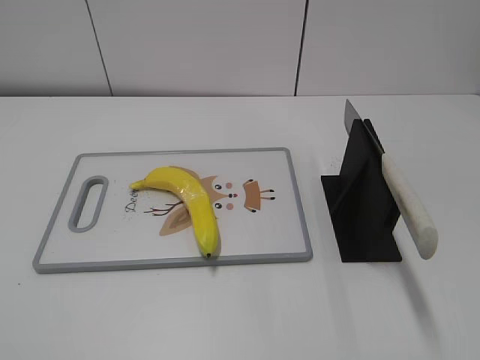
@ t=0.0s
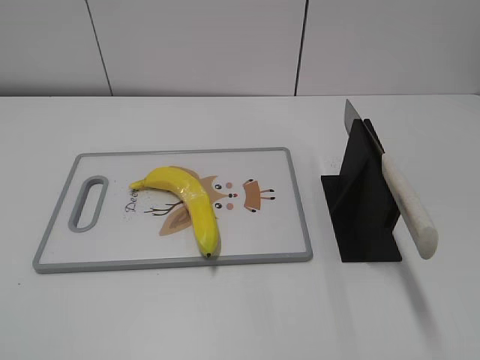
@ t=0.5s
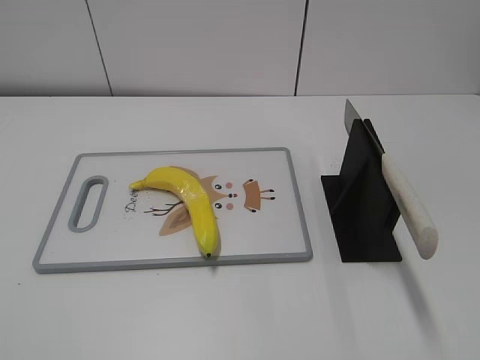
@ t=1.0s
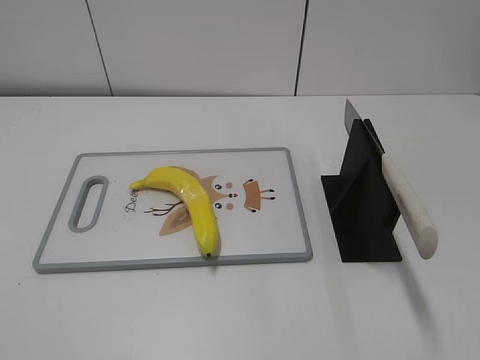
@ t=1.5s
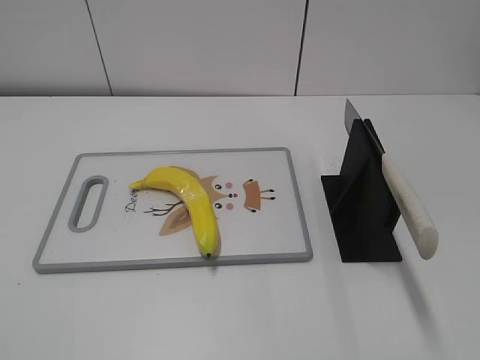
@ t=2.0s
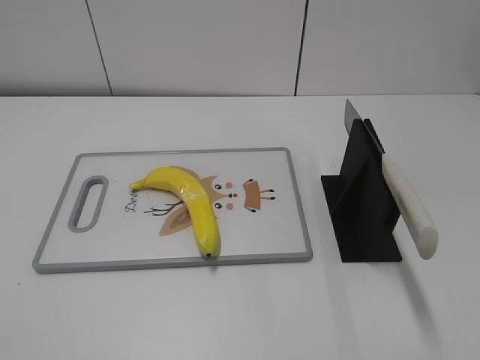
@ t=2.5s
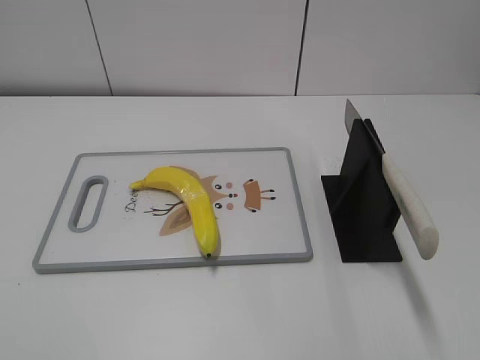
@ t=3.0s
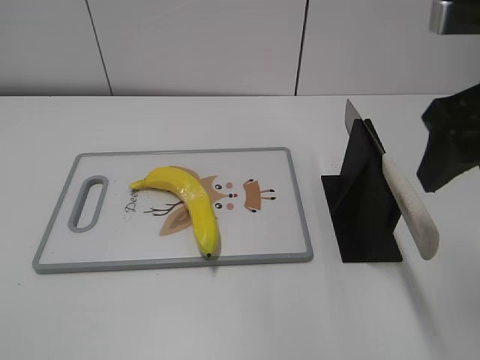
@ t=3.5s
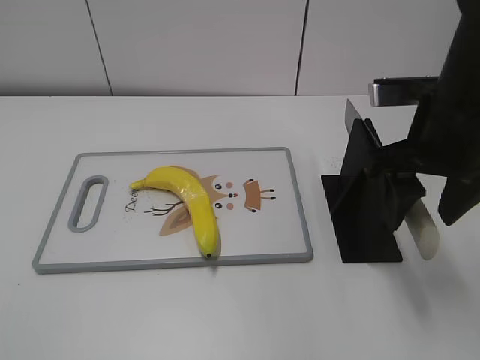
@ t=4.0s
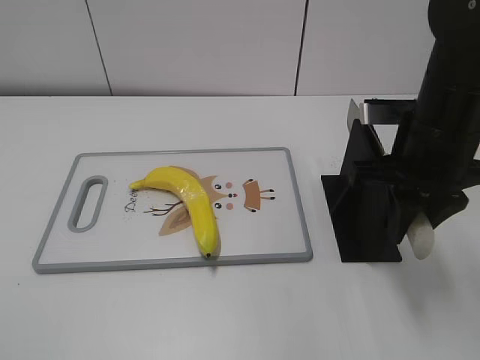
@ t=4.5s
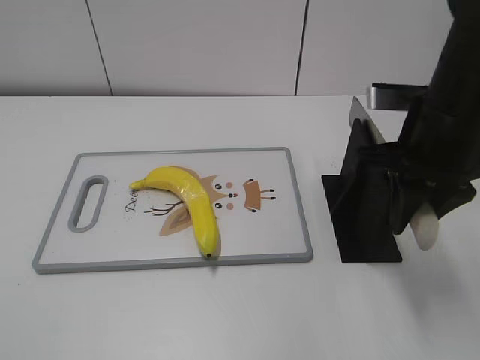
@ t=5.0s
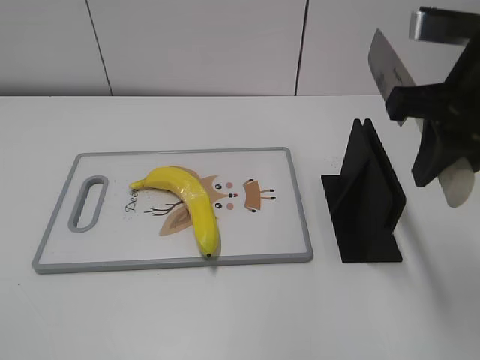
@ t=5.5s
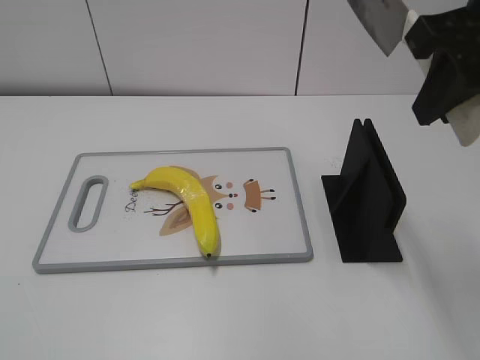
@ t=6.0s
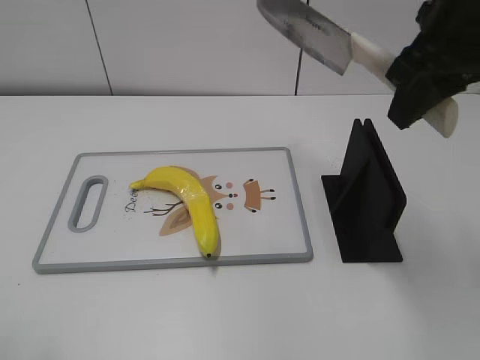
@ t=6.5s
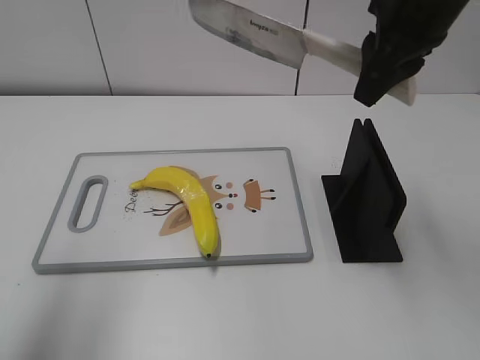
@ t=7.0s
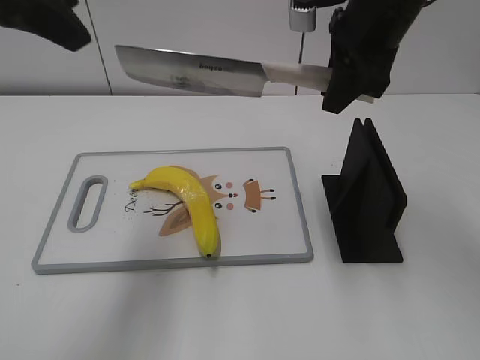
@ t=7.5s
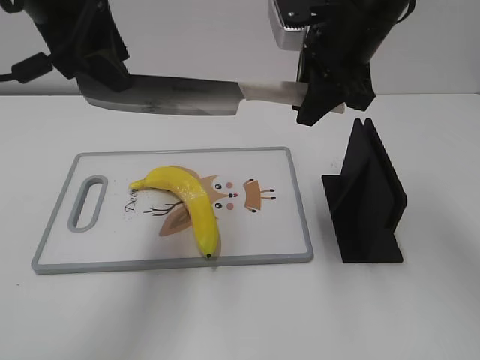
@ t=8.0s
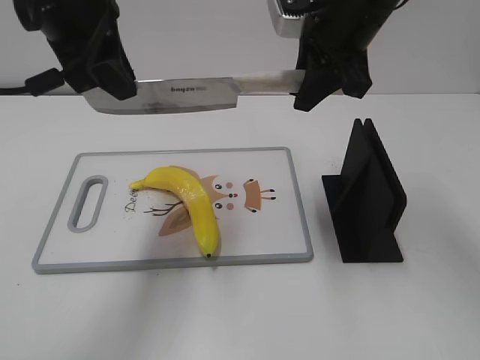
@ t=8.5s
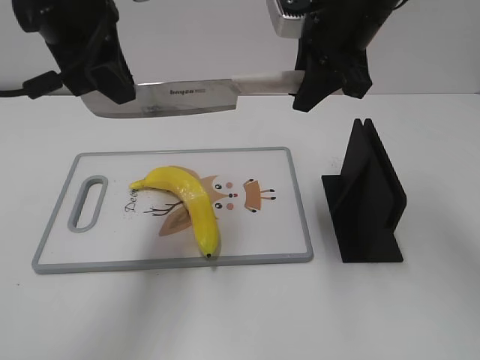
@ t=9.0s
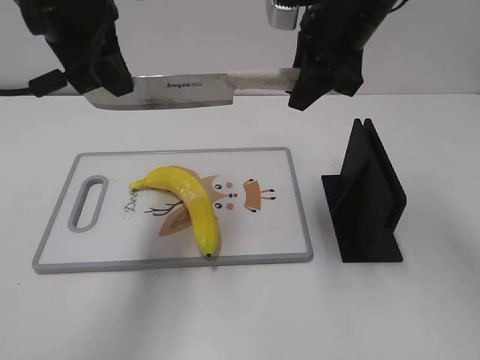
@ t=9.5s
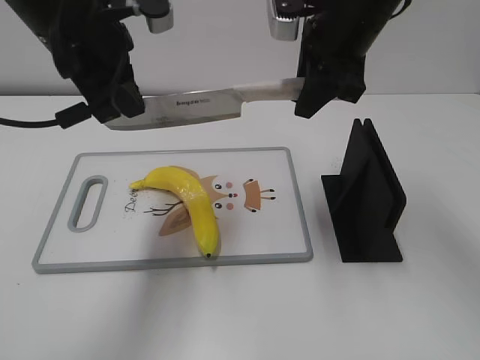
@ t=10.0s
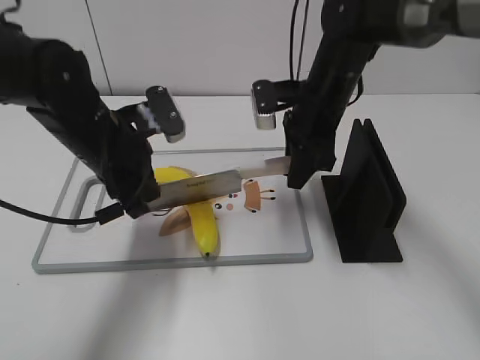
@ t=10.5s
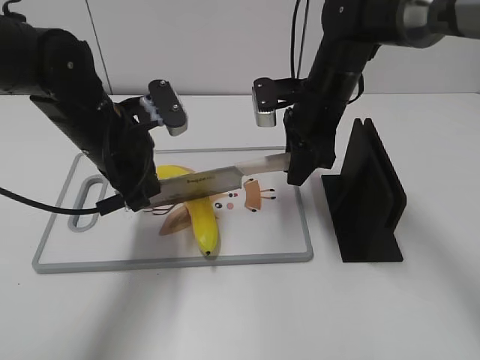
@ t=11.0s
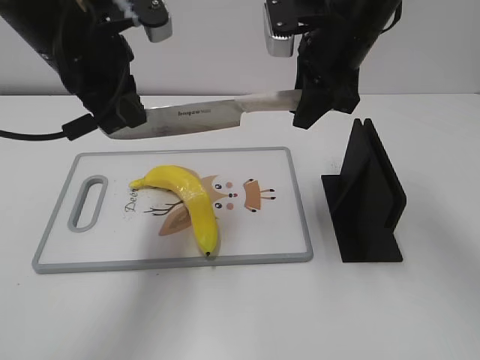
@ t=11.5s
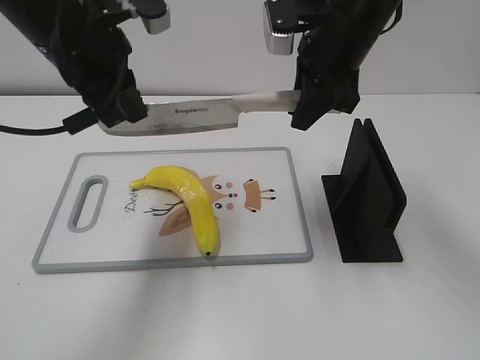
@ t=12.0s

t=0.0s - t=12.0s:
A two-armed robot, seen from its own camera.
Task of the whole recording: cut plastic banana.
Step, t=0.0s - t=5.5s: Grab the knife handle with your right hand.
Step, t=6.0s - t=11.0s: Lift the knife with your right hand.
t=2.0s - t=4.0s: The right gripper moves forward, roughly 30 cm.
t=4.0s - t=6.0s: The right gripper moves upward, roughly 10 cm, and closes up.
t=6.0s - t=8.0s: The right gripper shifts approximately 15 cm forward, downward and to the left. Meanwhile the left gripper heads forward and to the right, covering some 35 cm.
t=8.0s - t=10.0s: The left gripper shifts by approximately 5 cm, and closes.
t=10.0s - t=12.0s: The left gripper travels downward and back again, roughly 15 cm each way. The right gripper travels downward and back again, roughly 10 cm each way.

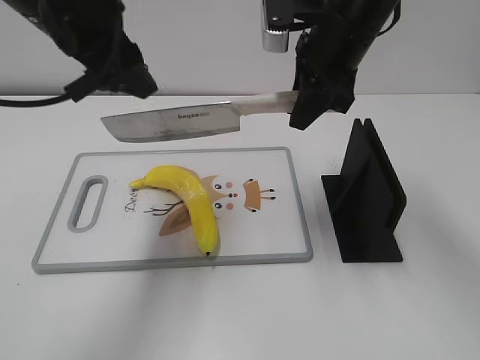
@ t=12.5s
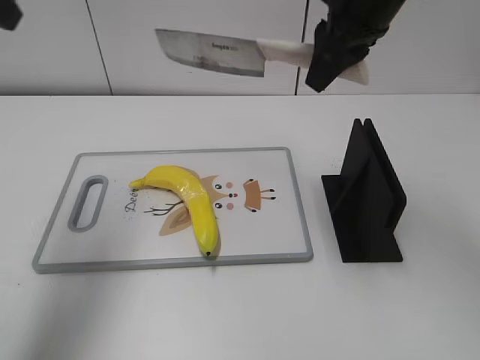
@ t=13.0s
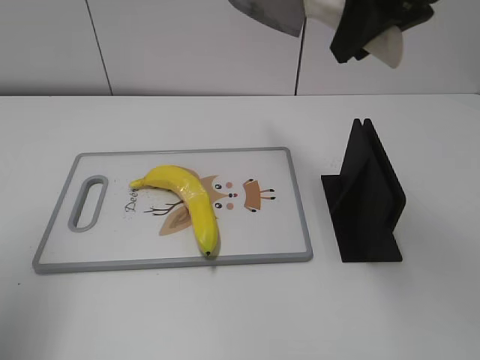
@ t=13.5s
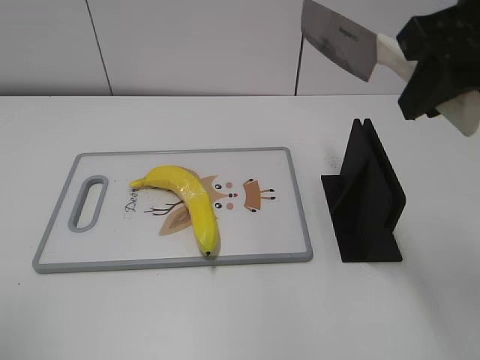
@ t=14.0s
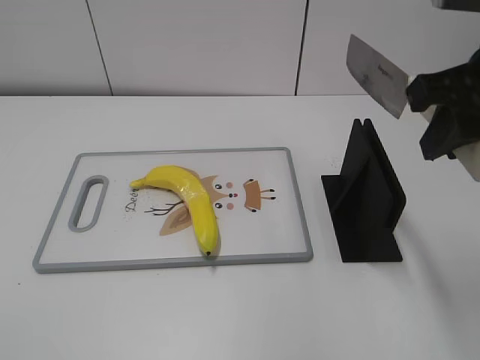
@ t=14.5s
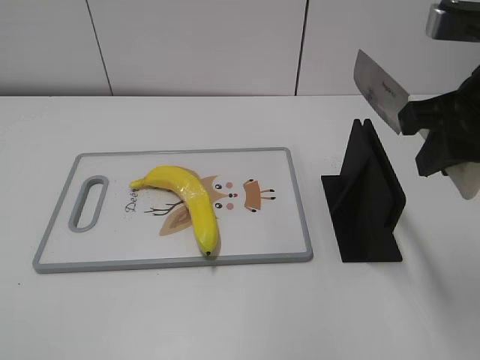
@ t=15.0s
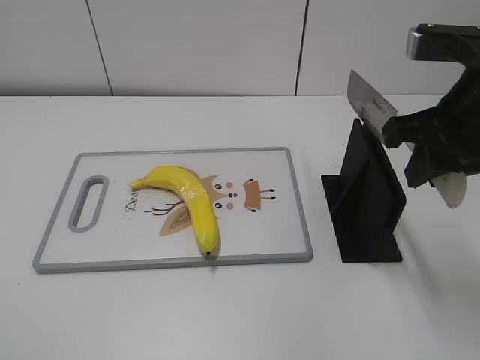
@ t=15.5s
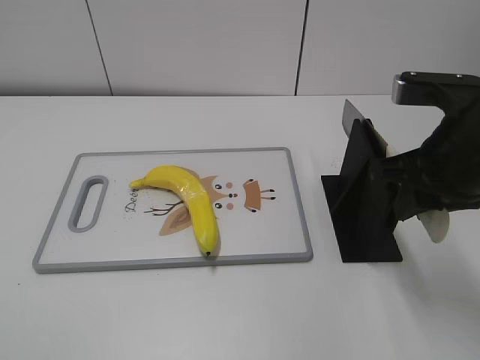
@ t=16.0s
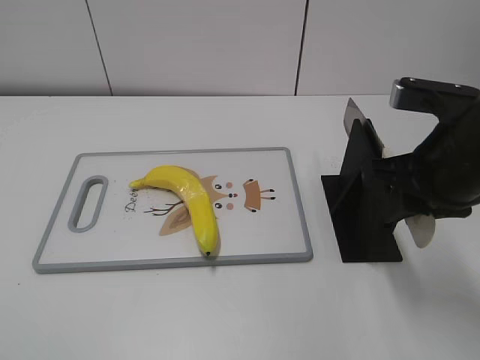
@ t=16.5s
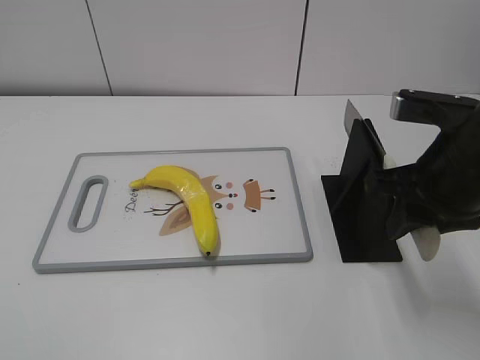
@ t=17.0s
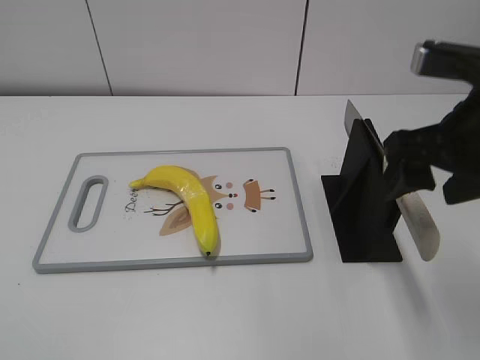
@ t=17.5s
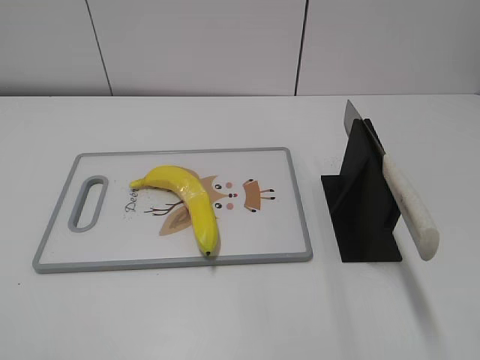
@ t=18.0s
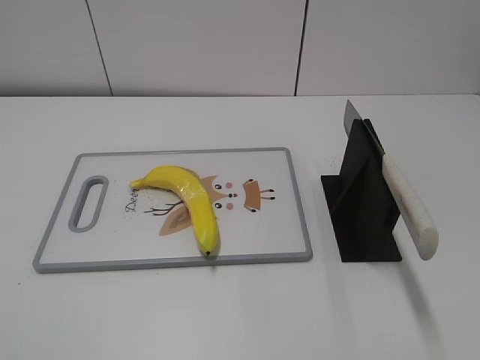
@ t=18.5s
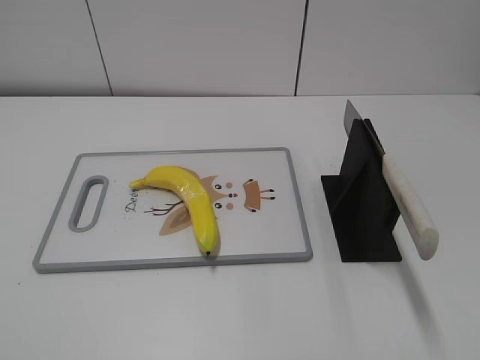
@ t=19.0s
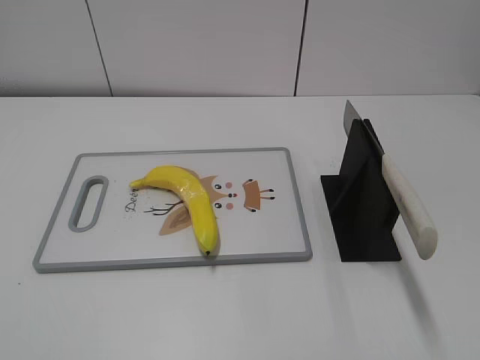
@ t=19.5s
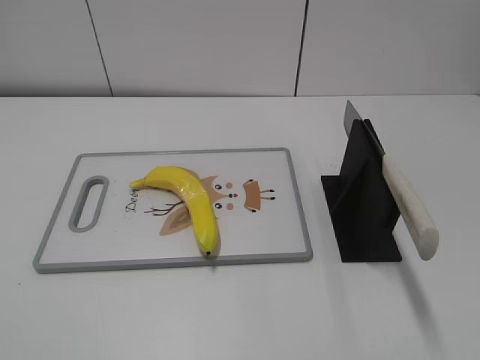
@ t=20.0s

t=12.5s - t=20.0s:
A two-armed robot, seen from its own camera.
Task of the whole recording: cut plastic banana.
Step, t=14.0s - t=15.0s: Lift the knife with your right hand.
Step, t=15.5s - t=20.0s: Place the knife on the storage rack with your right hand.
t=12.5s - t=14.5s: The right gripper moves backward and to the right, some 20 cm. The left gripper goes approximately 35 cm backward and to the left.
t=14.5s - t=16.5s: The right gripper goes some 10 cm downward.
t=16.5s - t=18.0s: The right gripper heads upward and backward, covering about 20 cm, and opens its fingers.
